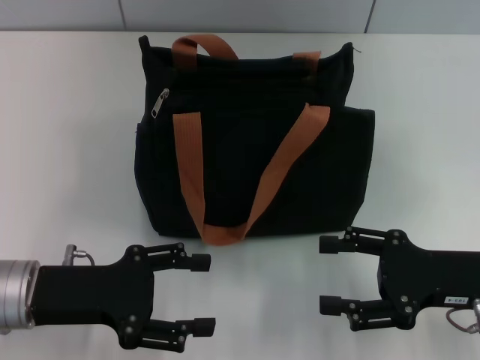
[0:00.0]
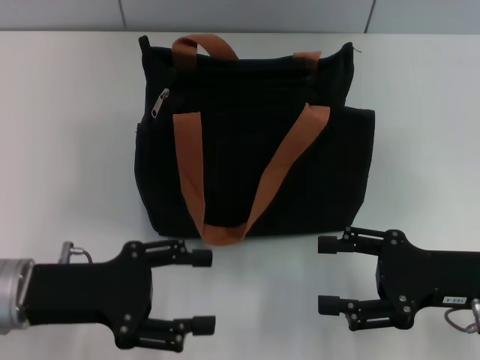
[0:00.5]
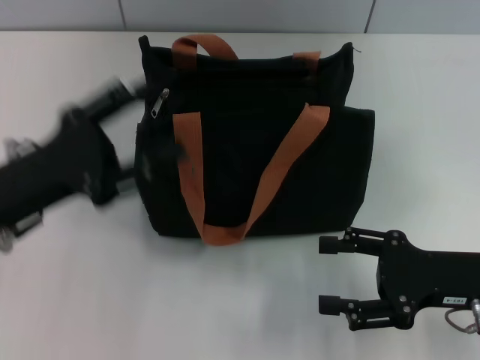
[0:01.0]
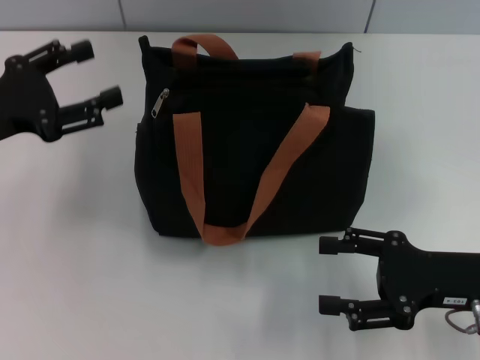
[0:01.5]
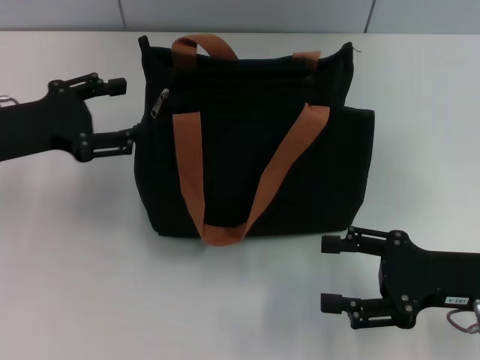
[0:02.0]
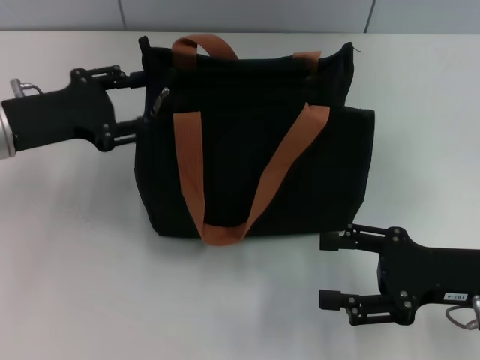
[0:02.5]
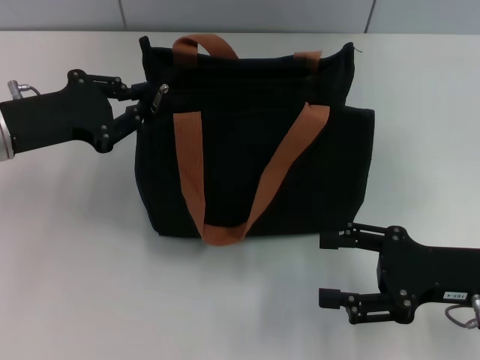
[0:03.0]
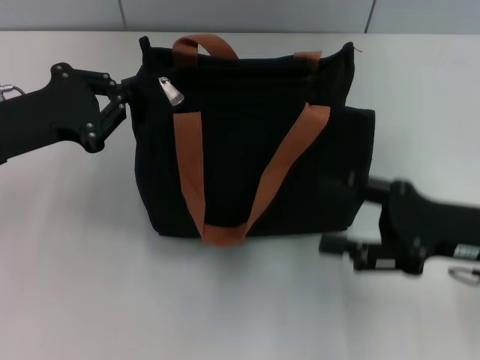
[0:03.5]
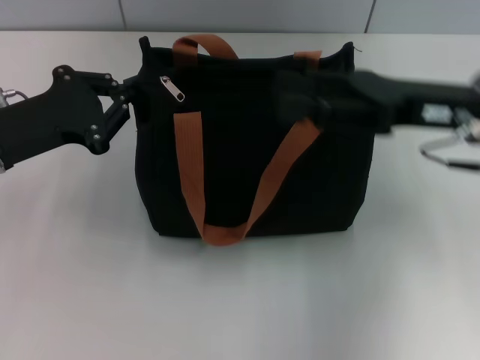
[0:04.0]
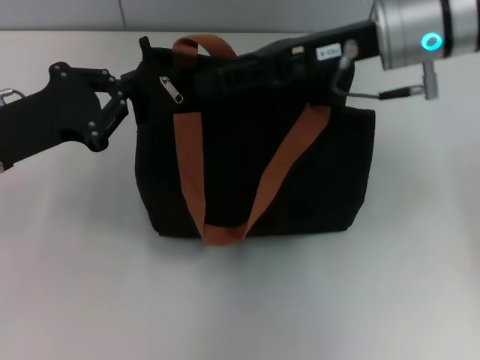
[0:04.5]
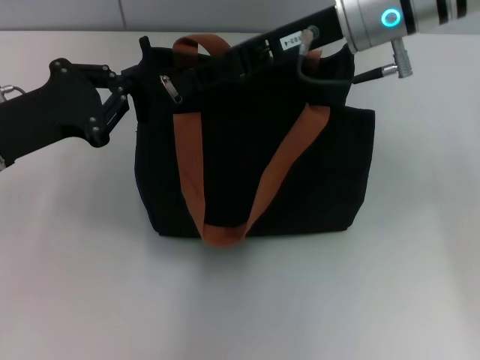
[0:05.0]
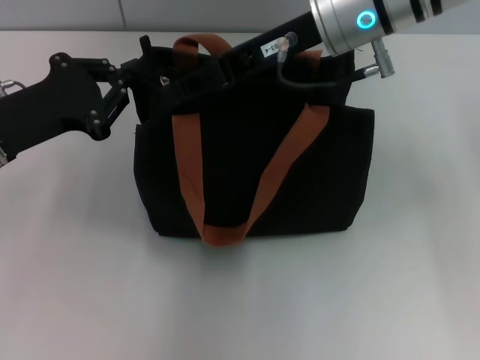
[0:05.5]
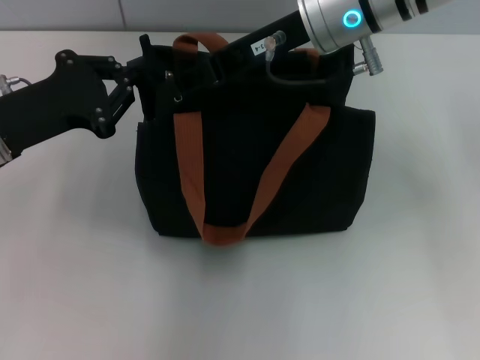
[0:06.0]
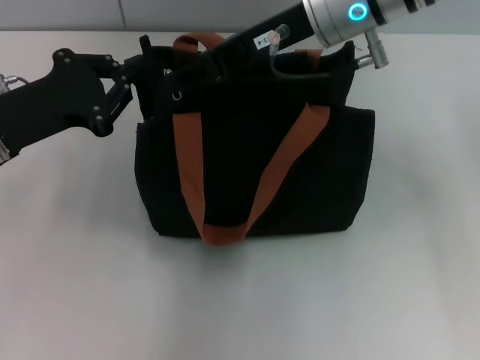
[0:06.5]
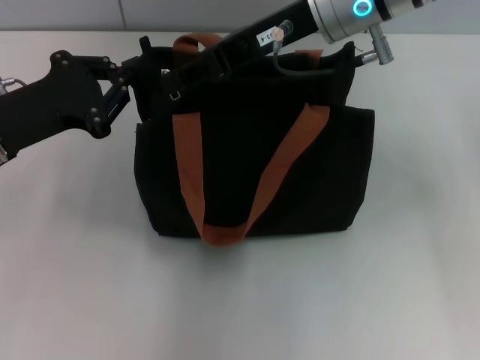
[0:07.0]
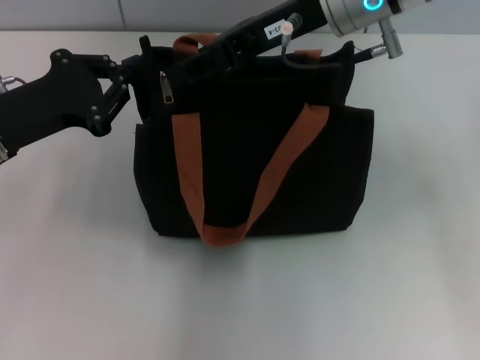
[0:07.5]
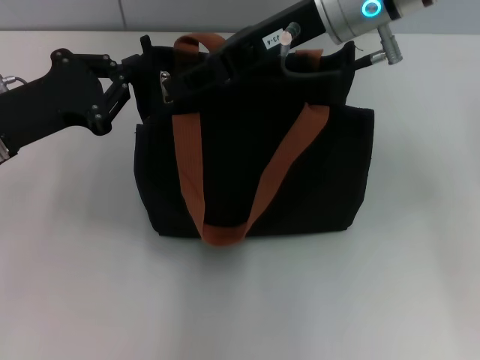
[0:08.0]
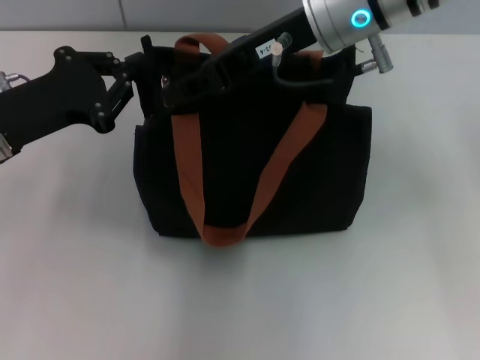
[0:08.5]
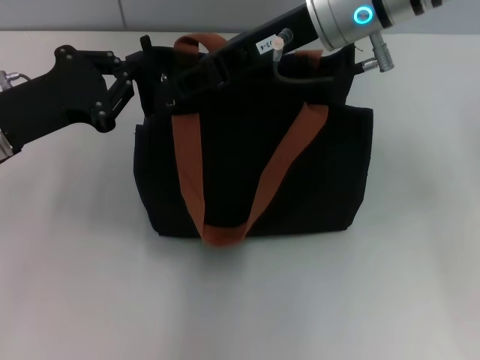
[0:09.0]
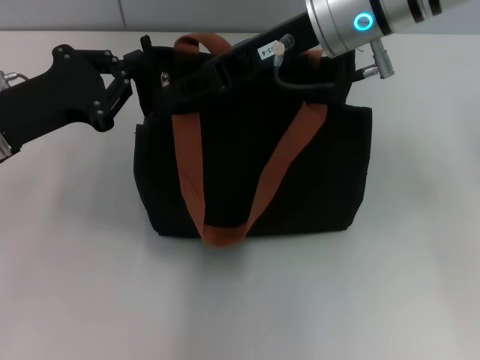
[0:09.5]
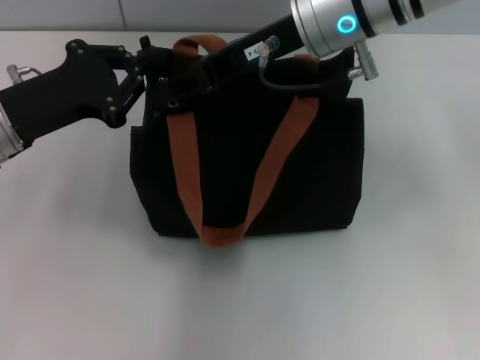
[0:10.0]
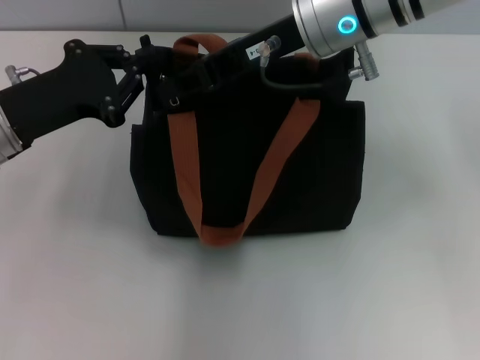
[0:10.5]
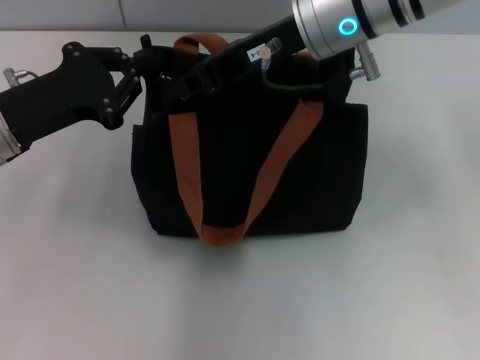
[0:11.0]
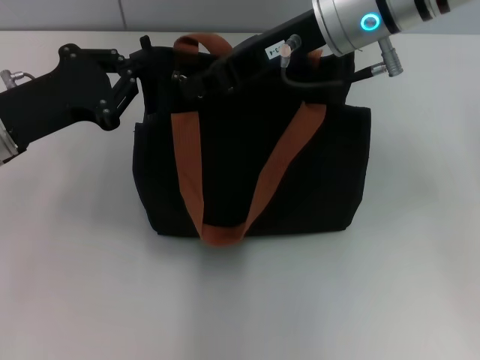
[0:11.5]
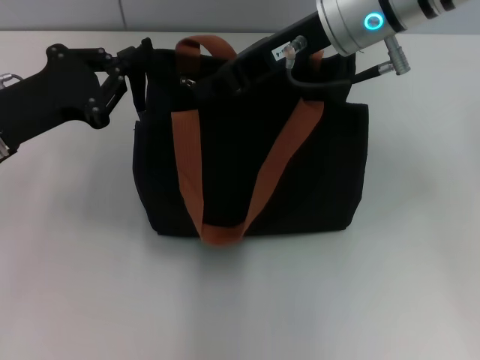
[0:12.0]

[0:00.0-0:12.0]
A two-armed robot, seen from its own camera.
0:00.0 to 0:02.0: The left gripper moves forward and upward, about 10 cm.
0:02.0 to 0:04.0: The right gripper is displaced upward and forward by approximately 15 cm. The left gripper closes its fingers.
0:04.0 to 0:06.0: The right gripper is displaced to the left, forward and upward by approximately 15 cm, and closes up.
0:06.0 to 0:12.0: The grippers move only a little.

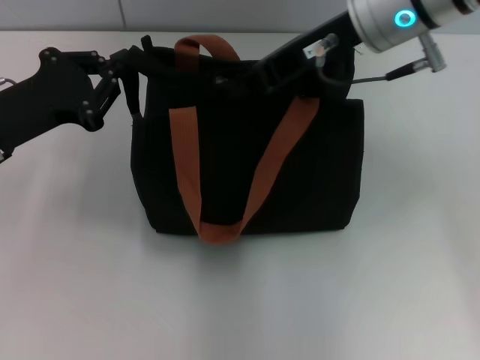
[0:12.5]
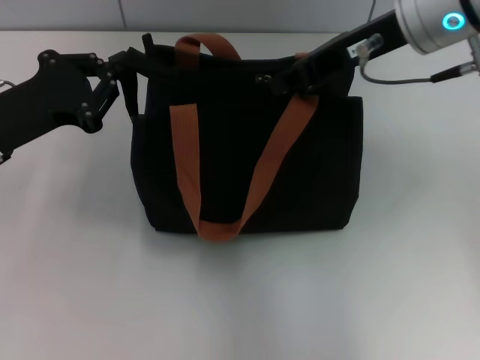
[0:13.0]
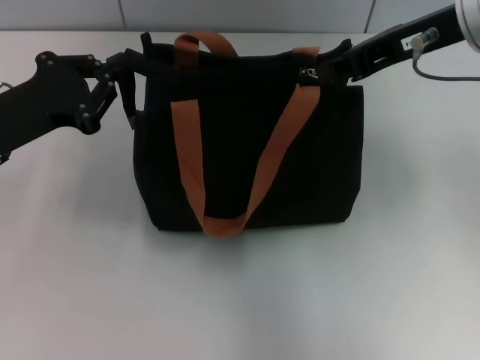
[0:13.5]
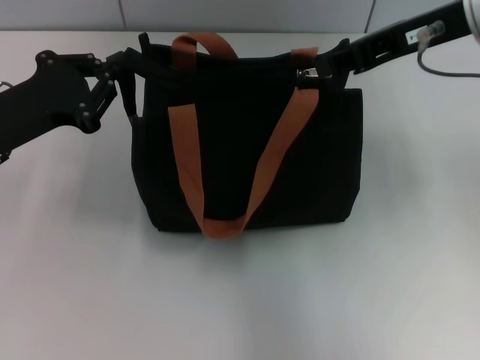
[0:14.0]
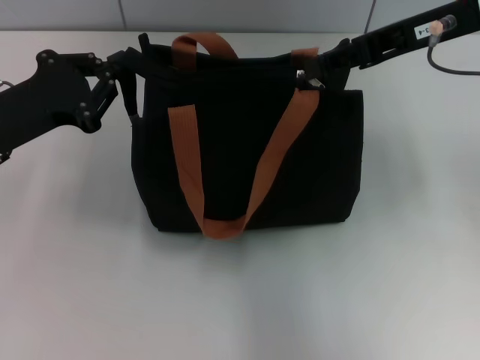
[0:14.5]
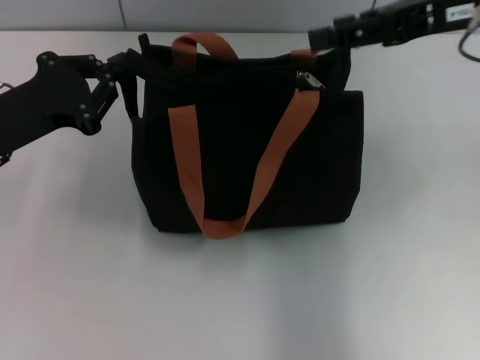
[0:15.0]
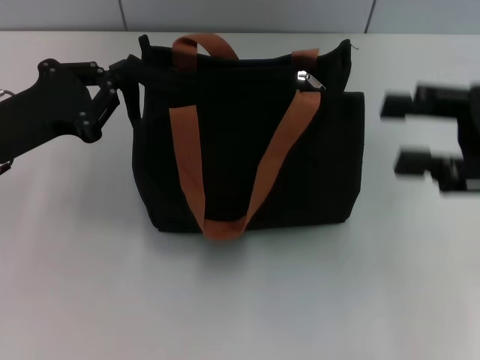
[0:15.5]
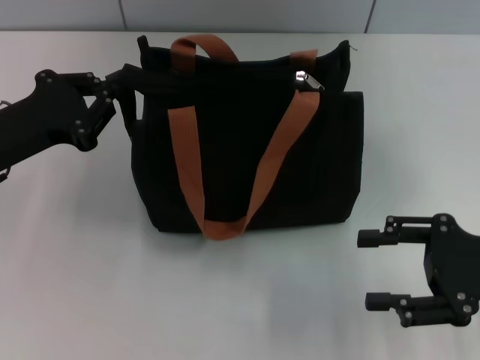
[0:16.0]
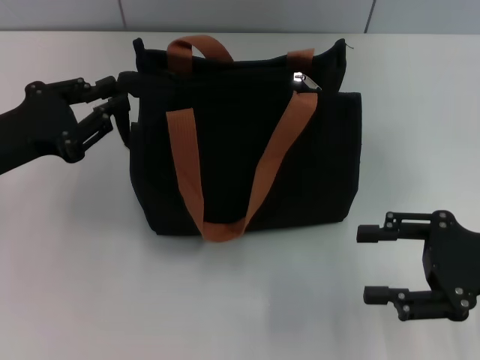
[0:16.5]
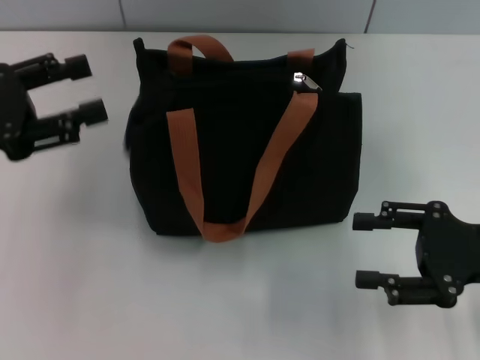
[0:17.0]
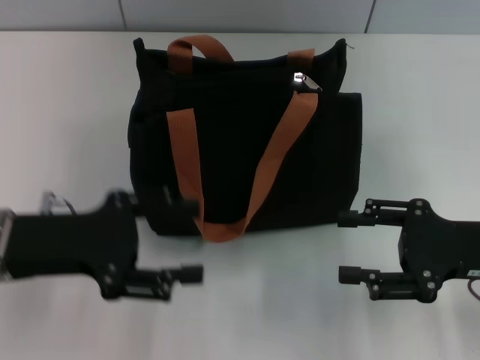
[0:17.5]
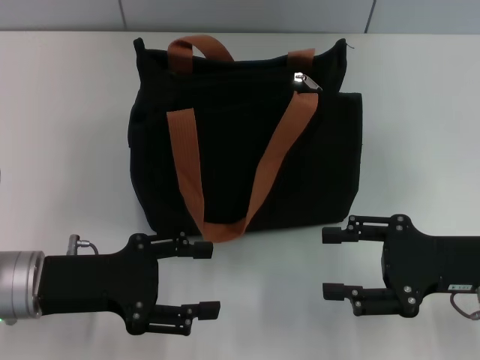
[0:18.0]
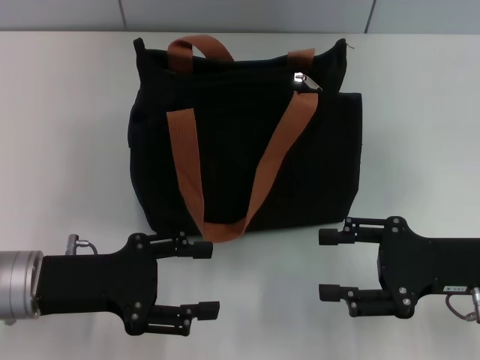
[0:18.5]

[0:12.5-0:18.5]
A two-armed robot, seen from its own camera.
Step, 0:12.5 to 0:15.0: Pull up the zipper with your right hand.
Step, 0:15.5 to 0:16.5: Grab the zipper with your left hand.
0:12.5 to 0:14.5: The right gripper goes roughly 10 cm to the right.
0:14.5 to 0:16.5: The right gripper shifts approximately 25 cm downward, backward and to the right, and opens its fingers.
0:16.5 to 0:18.5: The left gripper moves backward and to the right, approximately 10 cm, and opens its fingers.
